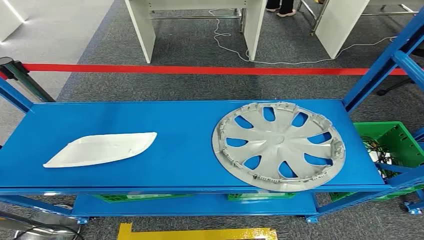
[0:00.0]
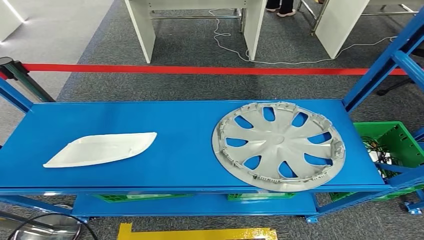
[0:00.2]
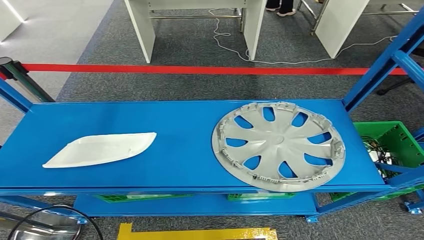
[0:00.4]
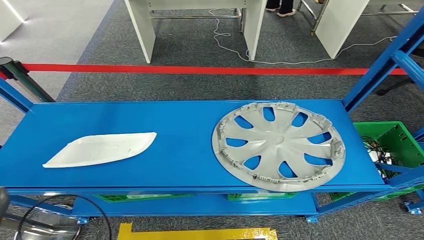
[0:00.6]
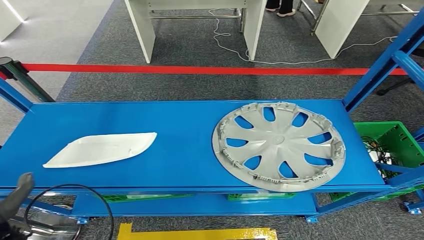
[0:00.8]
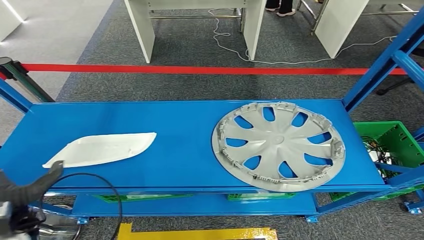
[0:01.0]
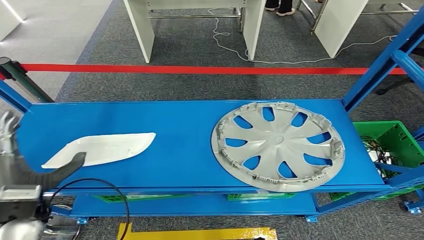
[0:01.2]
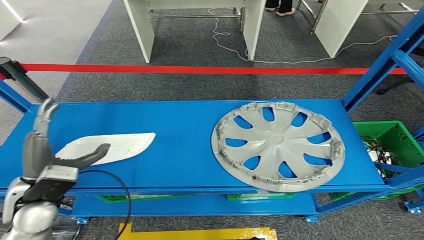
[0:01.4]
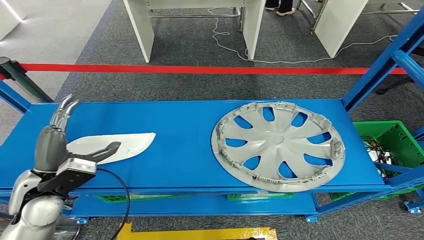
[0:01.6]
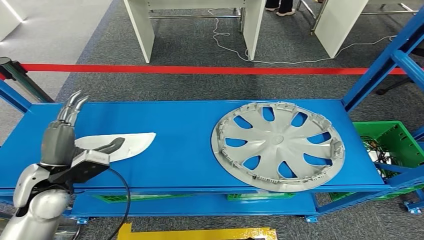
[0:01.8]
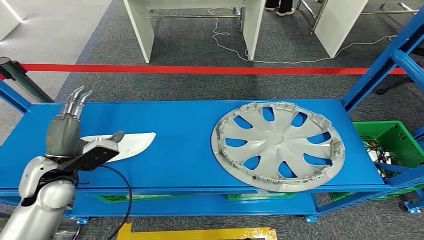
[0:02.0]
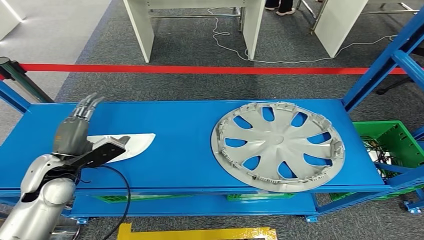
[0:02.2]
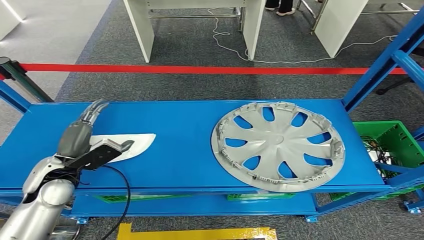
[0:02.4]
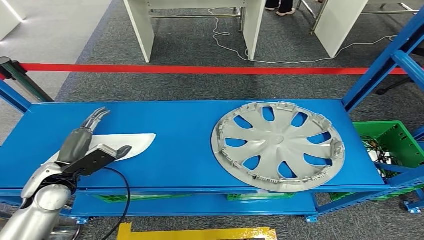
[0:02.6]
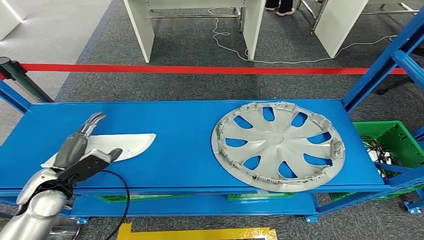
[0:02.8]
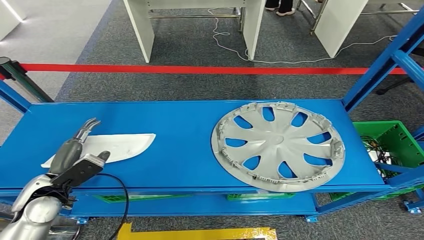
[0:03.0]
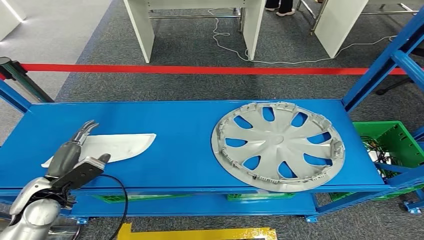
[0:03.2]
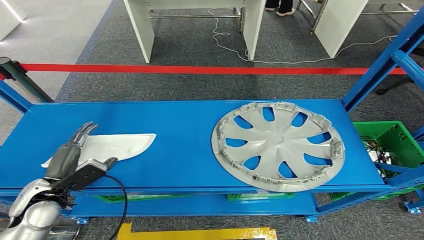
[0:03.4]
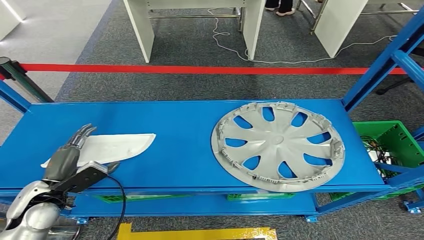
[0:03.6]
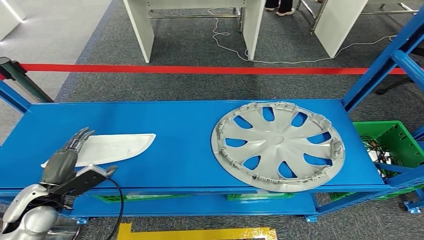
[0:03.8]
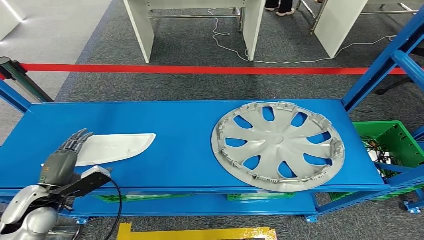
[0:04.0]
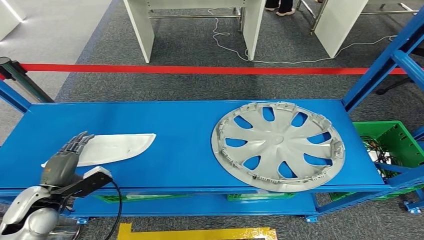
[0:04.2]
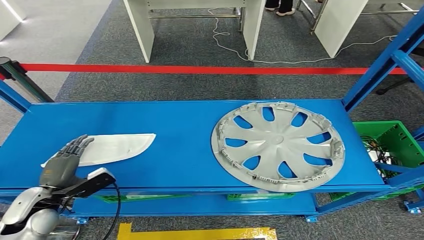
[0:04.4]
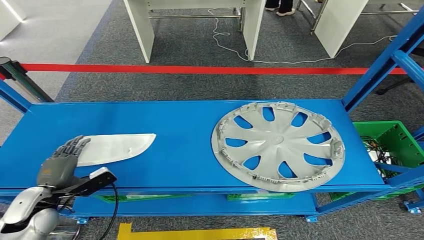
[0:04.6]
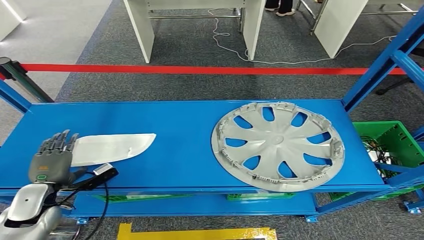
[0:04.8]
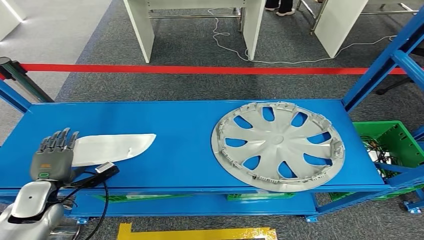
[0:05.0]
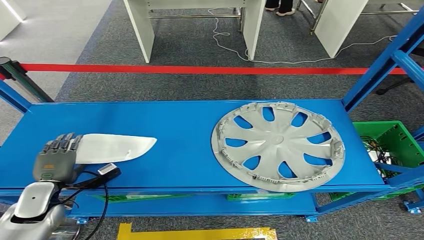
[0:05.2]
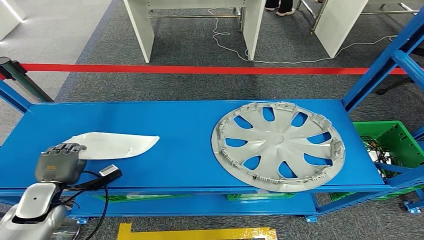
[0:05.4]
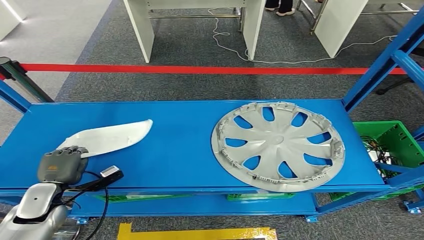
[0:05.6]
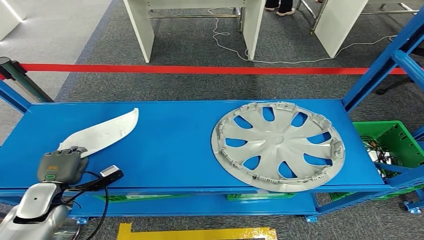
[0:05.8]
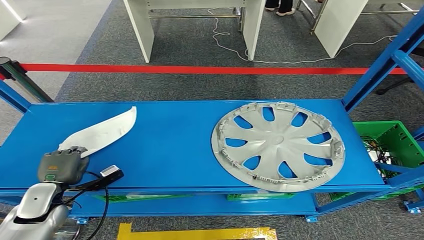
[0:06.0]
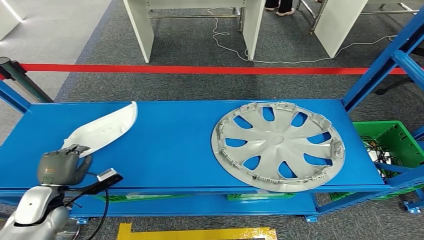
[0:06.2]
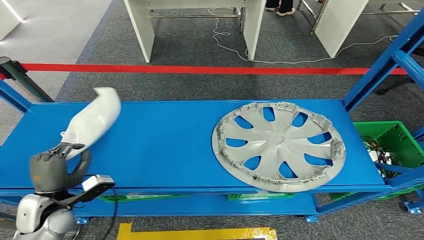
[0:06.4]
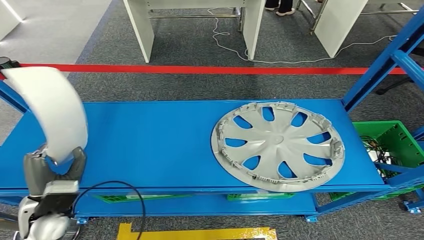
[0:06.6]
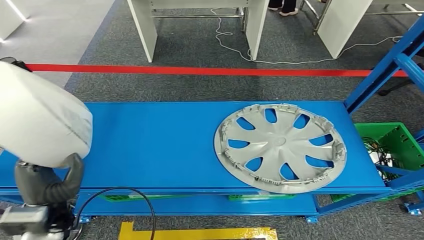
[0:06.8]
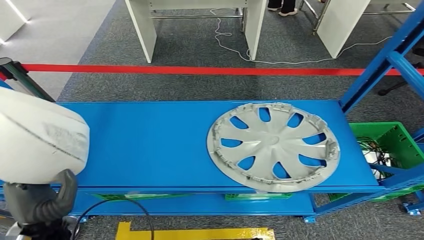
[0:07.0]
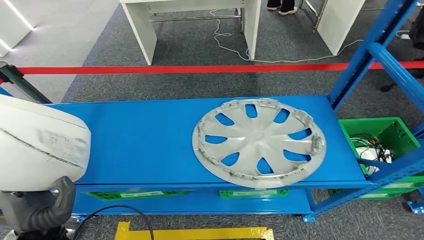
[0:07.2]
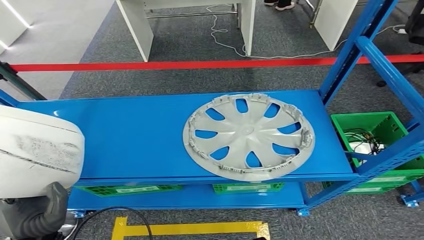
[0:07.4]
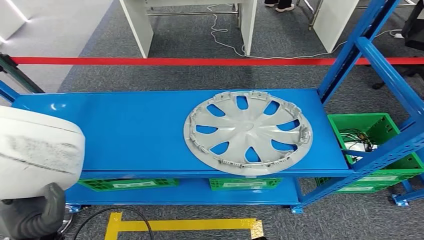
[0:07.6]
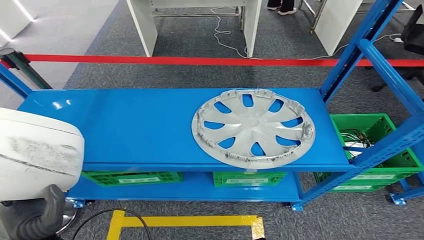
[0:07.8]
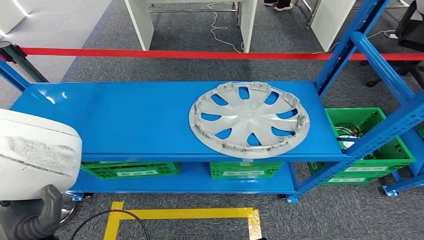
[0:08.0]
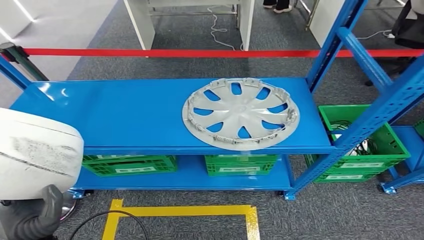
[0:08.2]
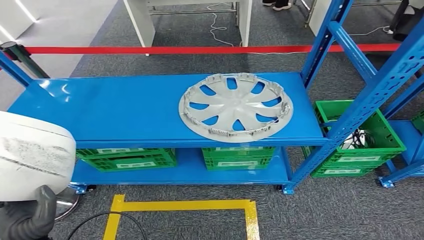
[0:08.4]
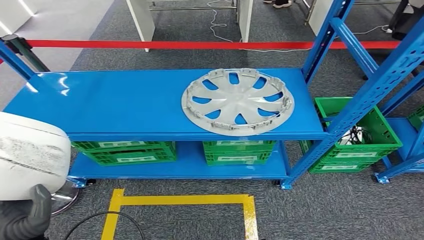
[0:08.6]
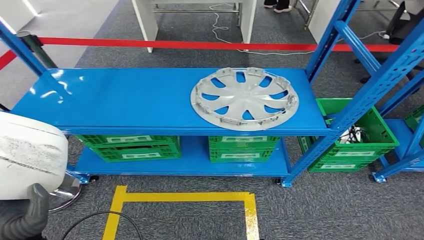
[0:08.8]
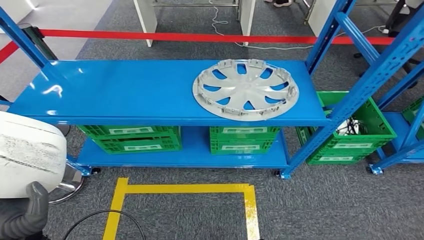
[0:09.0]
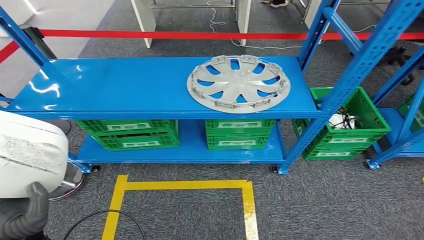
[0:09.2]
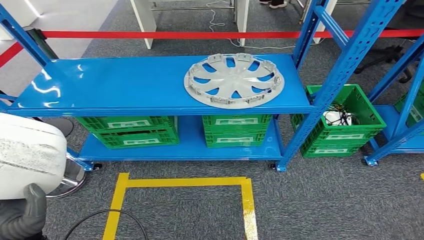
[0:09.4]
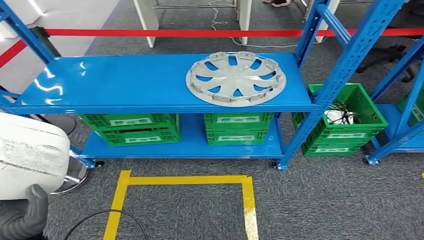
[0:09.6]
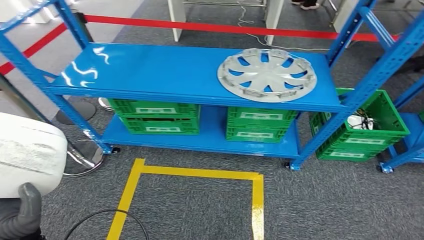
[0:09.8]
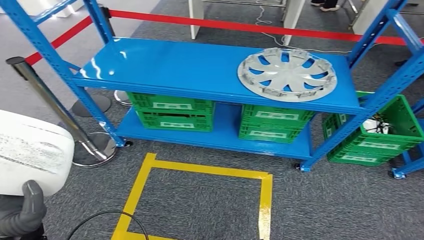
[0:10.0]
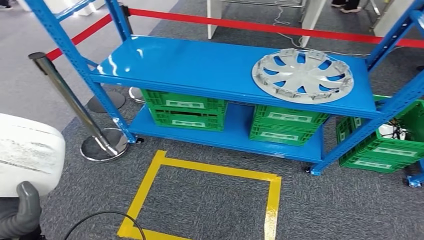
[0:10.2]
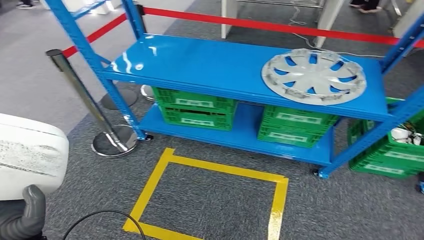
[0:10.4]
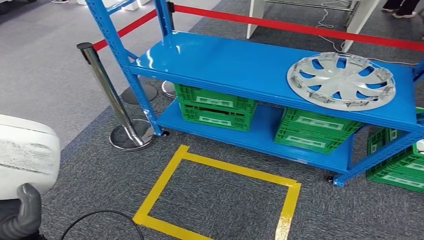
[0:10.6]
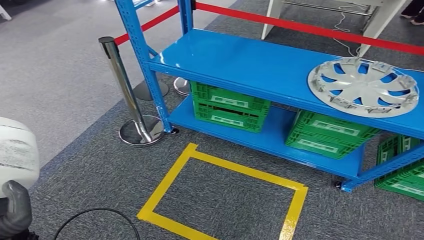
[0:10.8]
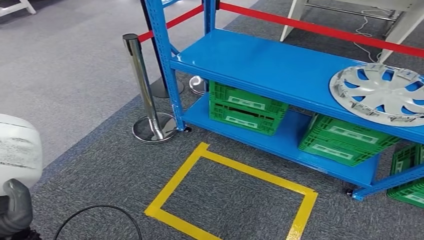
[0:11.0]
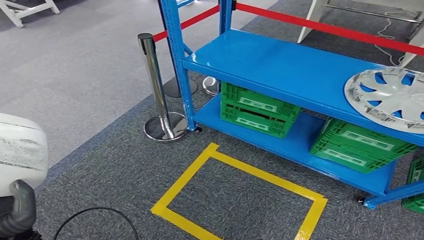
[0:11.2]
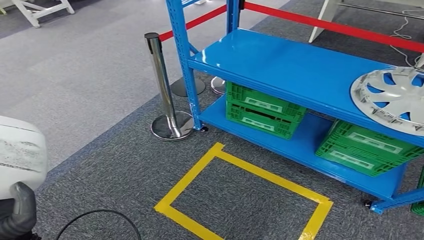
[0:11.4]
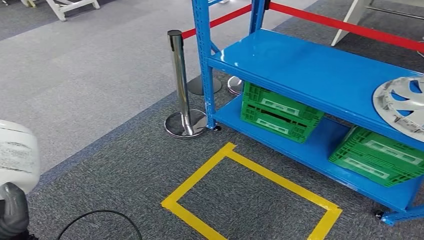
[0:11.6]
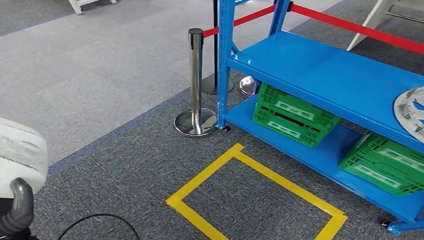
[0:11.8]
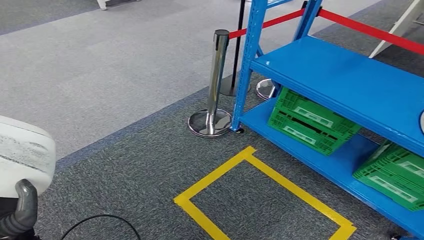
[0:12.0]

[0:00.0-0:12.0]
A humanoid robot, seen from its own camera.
Step, 0:00.0 to 0:08.0: Pick up the small parts from the shelf.
0:01.6 to 0:03.0: The left hand travels downward by some 5 cm.
0:03.0 to 0:04.4: The left hand shifts by roughly 5 cm.

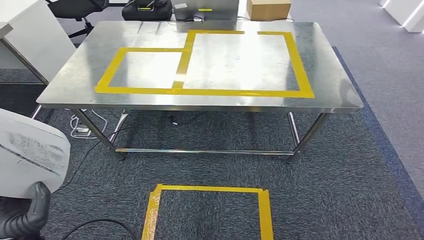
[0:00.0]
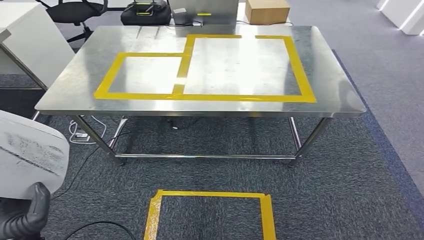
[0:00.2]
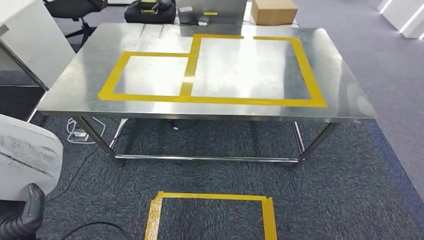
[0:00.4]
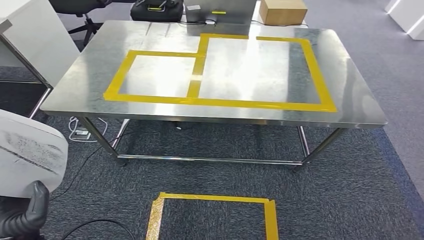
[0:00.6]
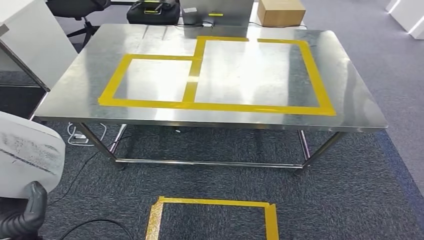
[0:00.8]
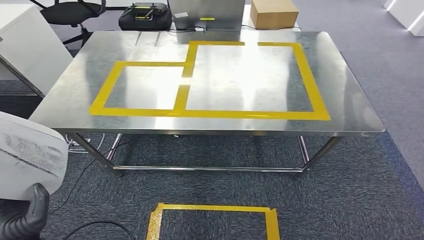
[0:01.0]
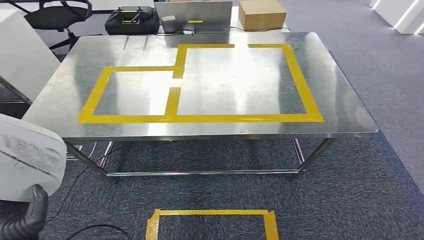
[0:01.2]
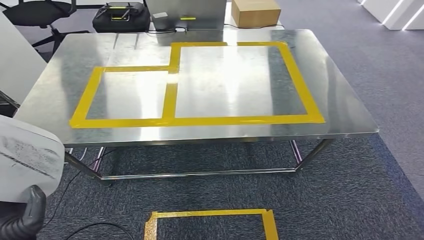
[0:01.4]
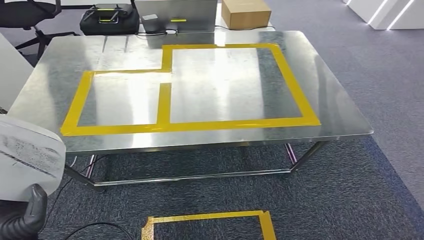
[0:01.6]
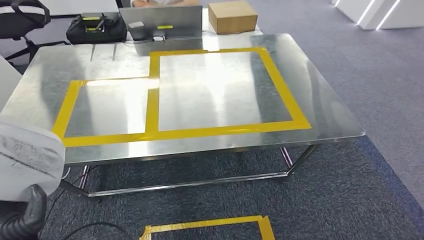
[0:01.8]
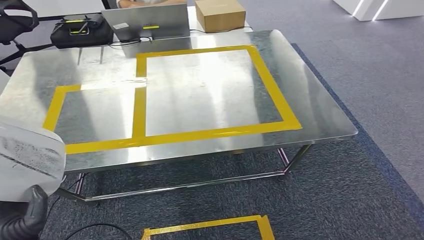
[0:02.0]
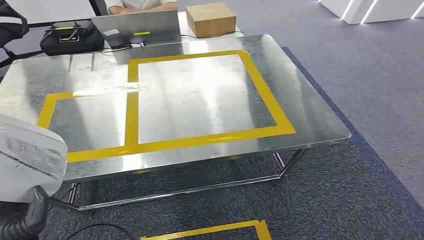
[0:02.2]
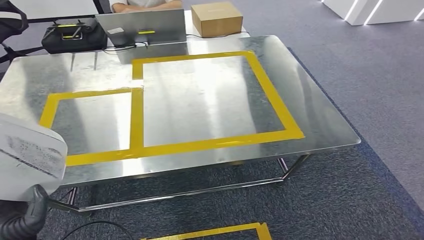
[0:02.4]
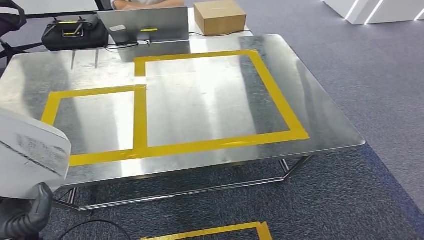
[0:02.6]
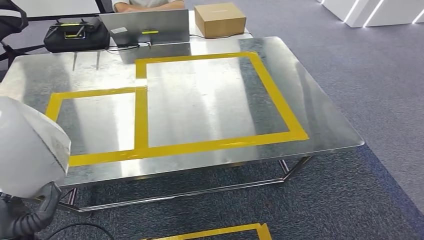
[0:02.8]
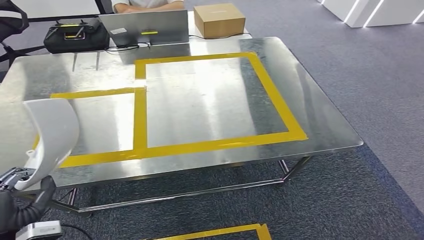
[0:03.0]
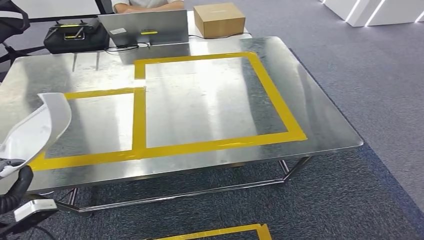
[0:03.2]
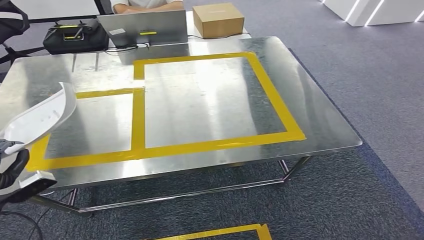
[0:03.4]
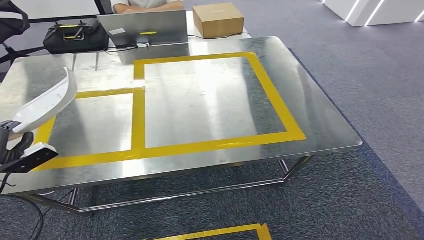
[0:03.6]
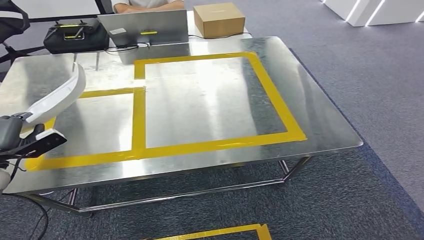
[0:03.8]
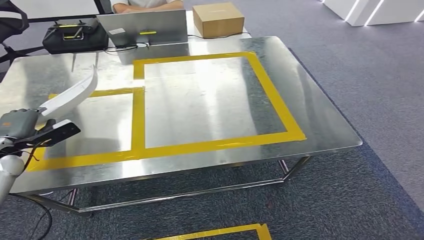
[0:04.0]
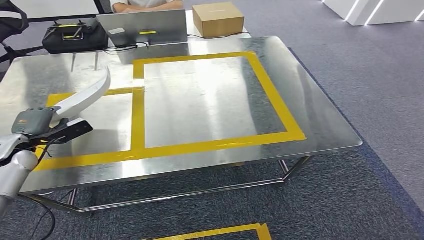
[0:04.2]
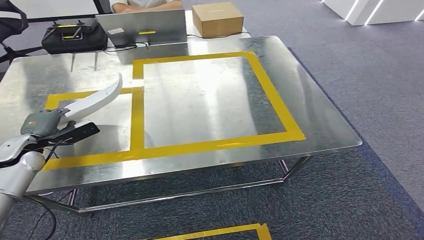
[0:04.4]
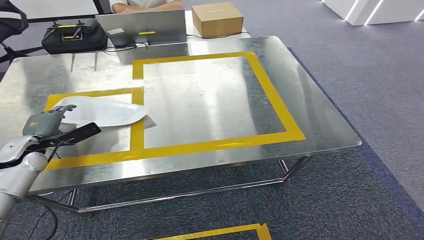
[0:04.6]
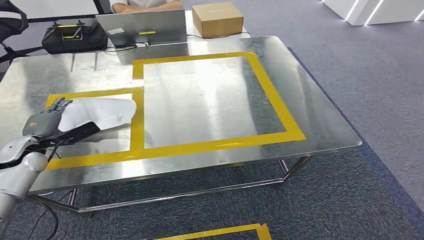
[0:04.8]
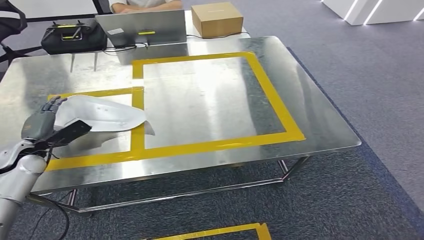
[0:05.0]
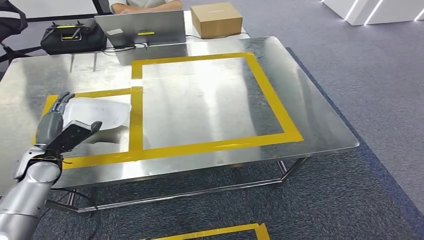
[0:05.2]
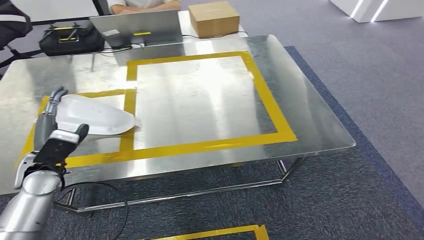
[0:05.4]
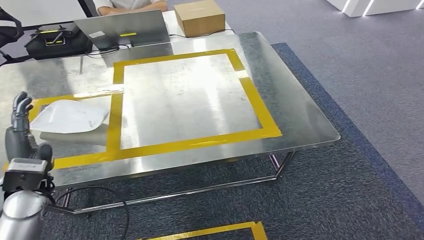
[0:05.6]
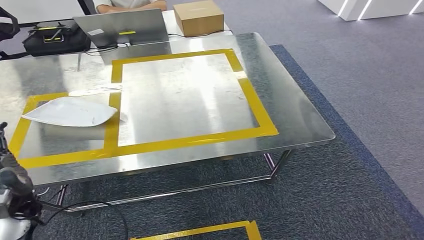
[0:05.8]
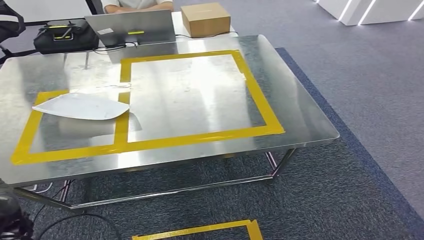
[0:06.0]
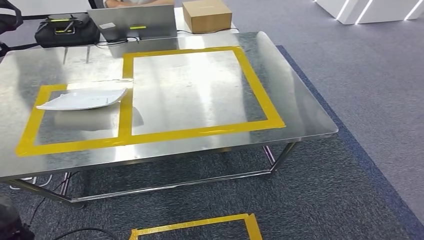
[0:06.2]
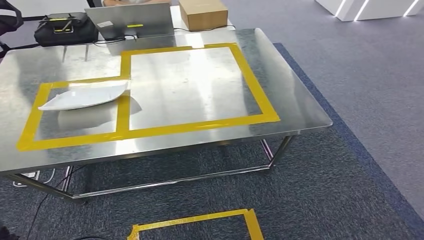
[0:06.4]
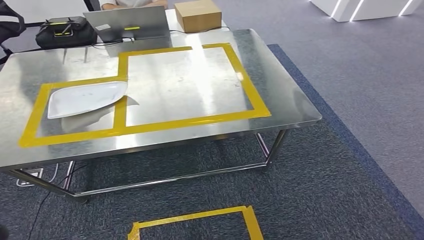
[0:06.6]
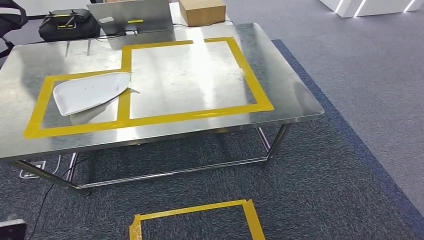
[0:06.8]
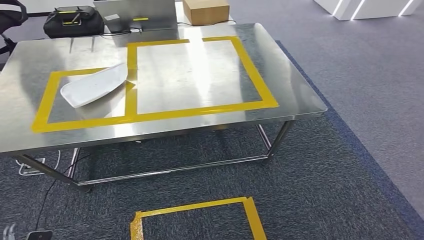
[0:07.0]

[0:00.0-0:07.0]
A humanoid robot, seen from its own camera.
Step, 0:00.0 to 0:02.8: Move the small parts to the workbench.
0:02.8 to 0:04.2: The left hand is displaced forward and to the left by about 30 cm.
